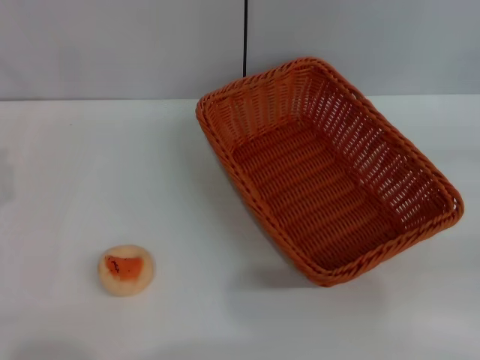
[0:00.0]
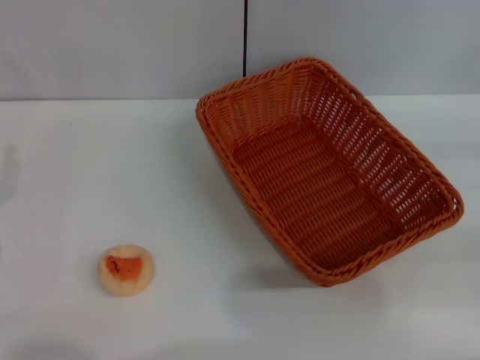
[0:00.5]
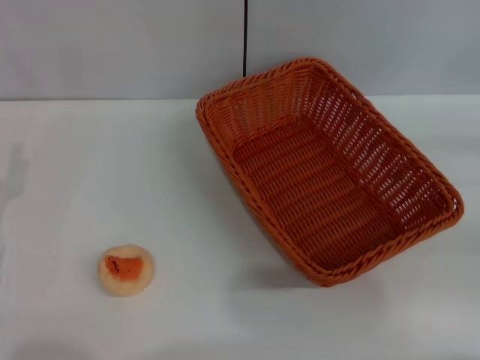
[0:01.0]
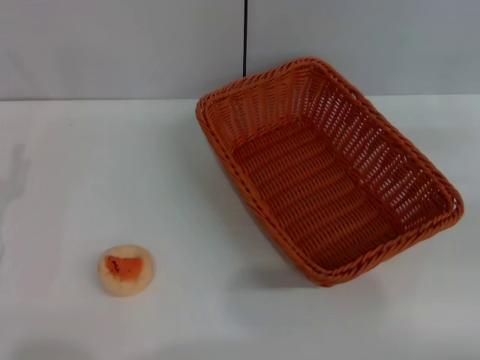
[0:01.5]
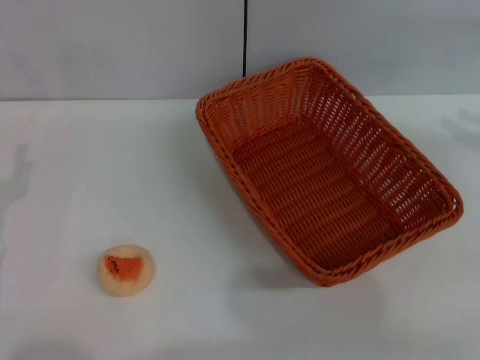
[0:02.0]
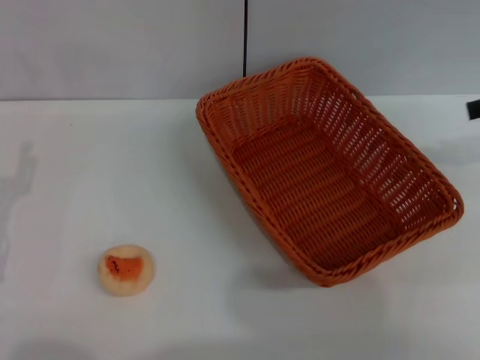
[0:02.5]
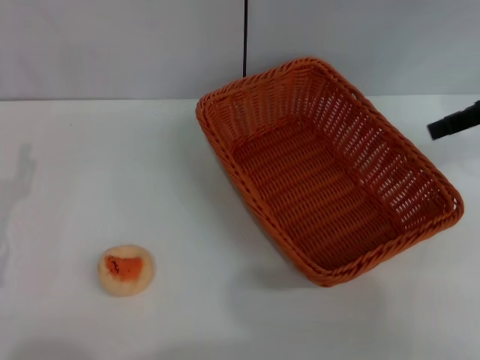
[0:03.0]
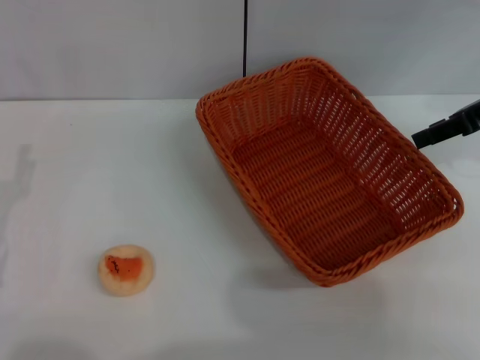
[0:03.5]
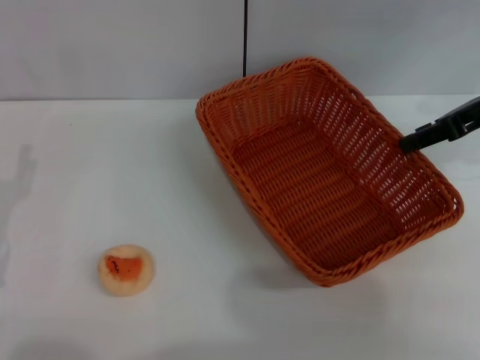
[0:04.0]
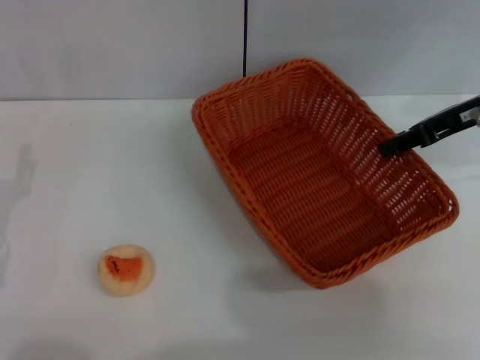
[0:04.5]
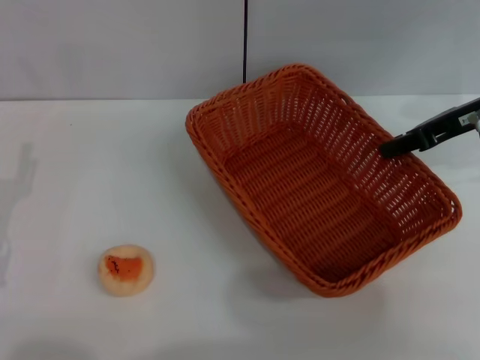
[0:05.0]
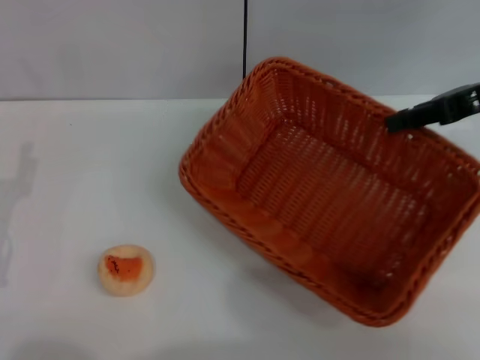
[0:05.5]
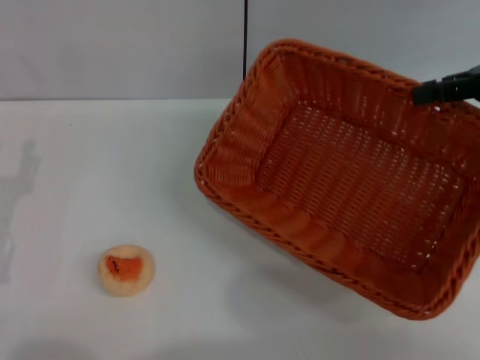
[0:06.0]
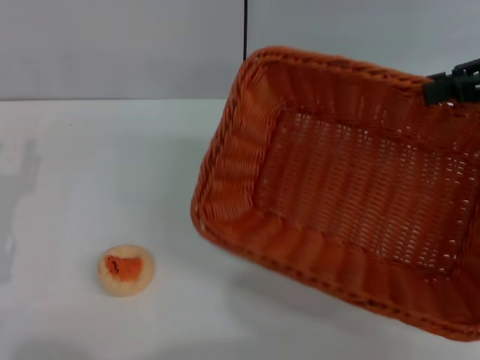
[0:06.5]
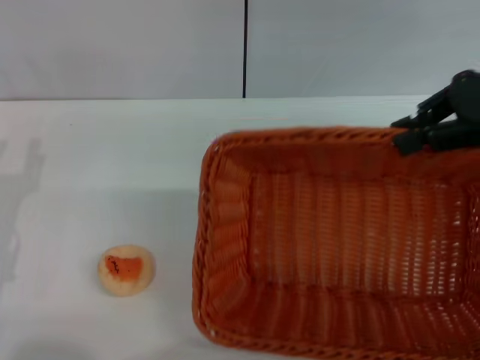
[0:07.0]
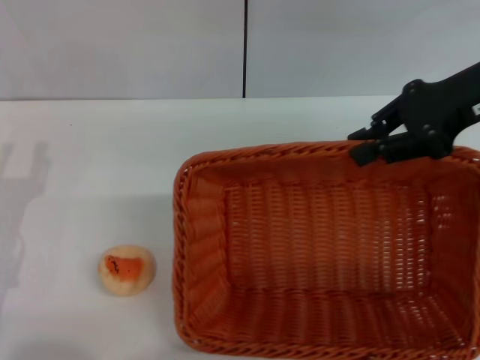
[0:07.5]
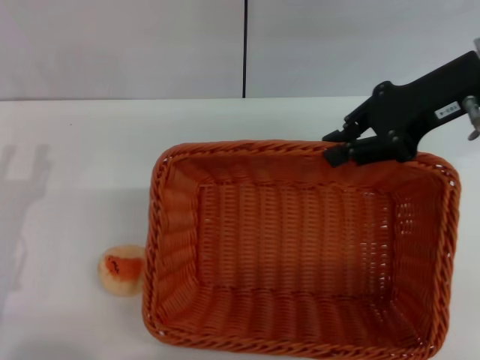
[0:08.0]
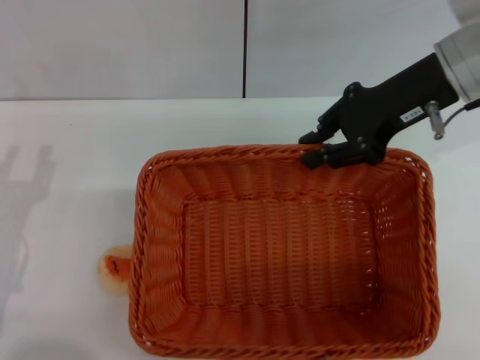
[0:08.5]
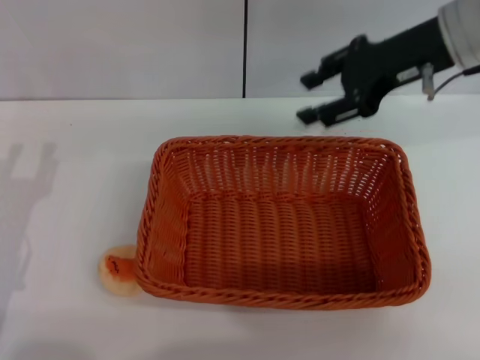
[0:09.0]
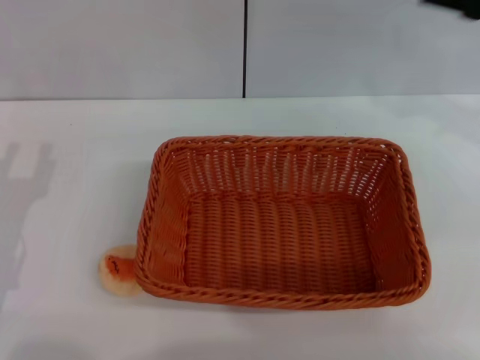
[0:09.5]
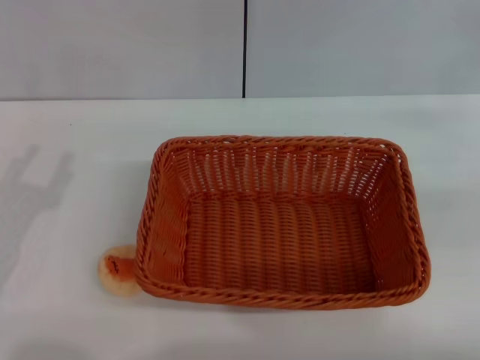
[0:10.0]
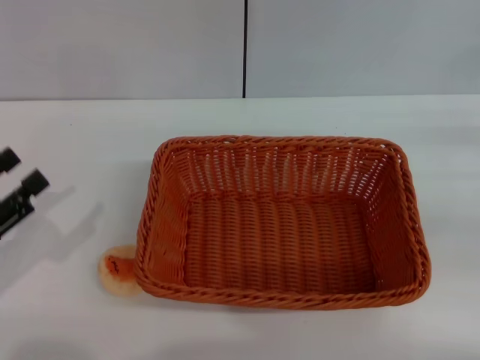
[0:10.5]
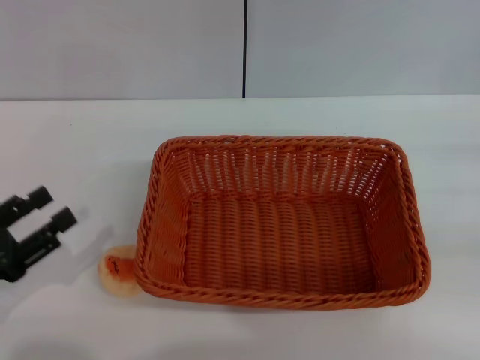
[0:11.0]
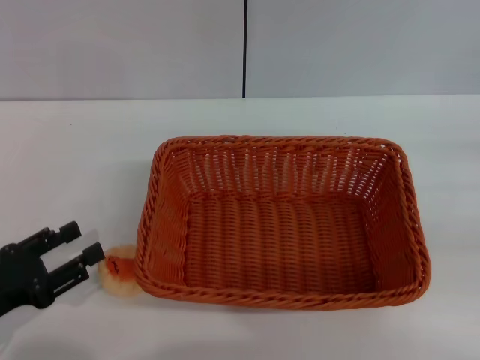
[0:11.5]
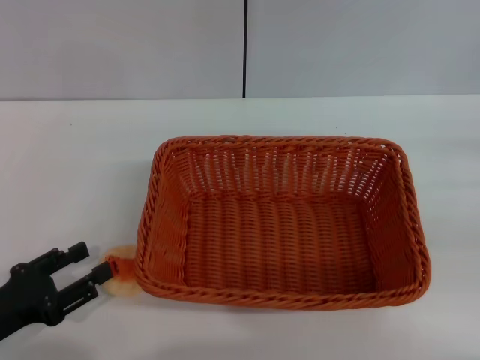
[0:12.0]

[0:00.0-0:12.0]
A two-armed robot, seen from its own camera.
Step, 0.0 to 8.5 s: Move the basket to the center of view with the right gripper.
2.0 to 4.0 s: The right gripper heads to the left and forward, covering some 15 cm.
4.0 to 6.0 s: The right gripper closes up.
6.0 to 8.0 s: The right gripper goes some 10 cm to the left.
8.0 to 10.0 s: The right gripper heads to the right and downward, covering roughly 20 cm, and opens up.
10.0 to 12.0 s: The left gripper moves some 5 cm.

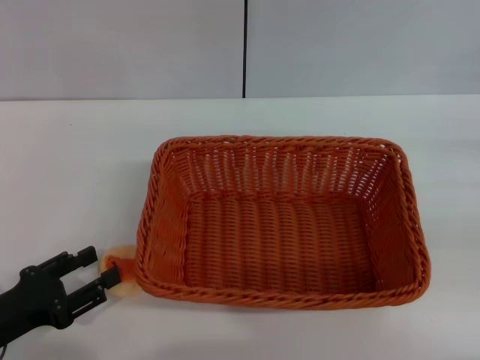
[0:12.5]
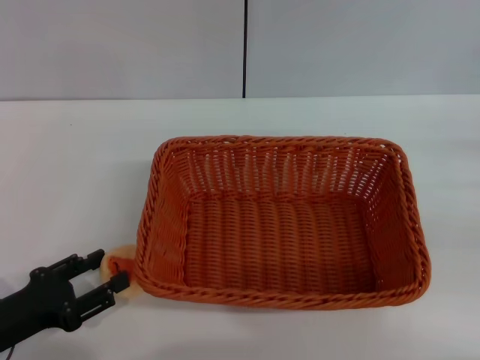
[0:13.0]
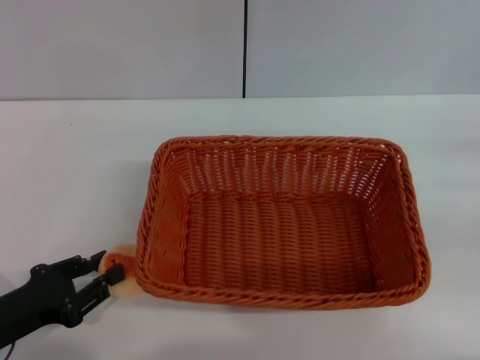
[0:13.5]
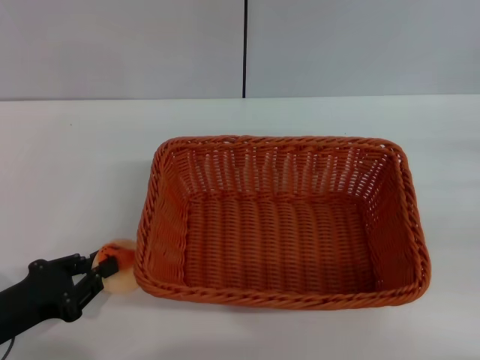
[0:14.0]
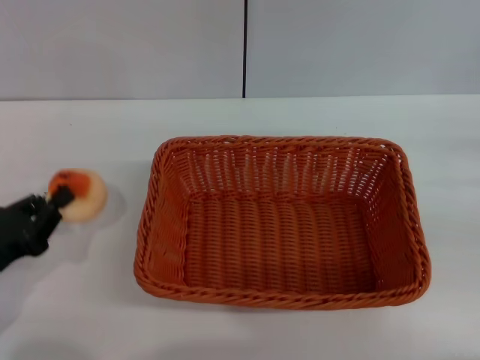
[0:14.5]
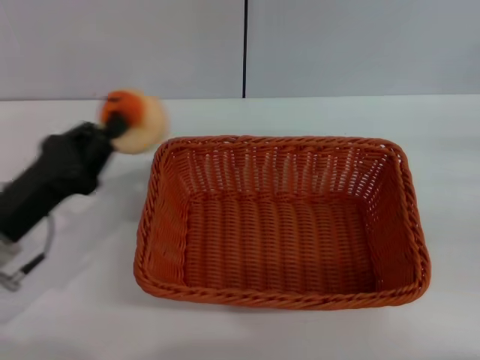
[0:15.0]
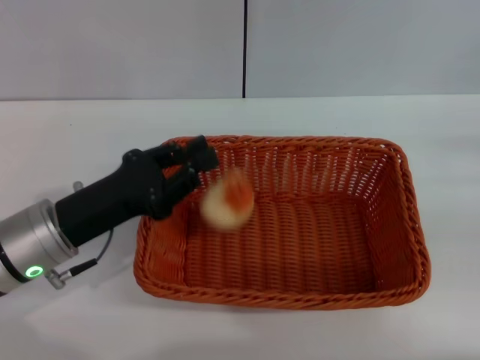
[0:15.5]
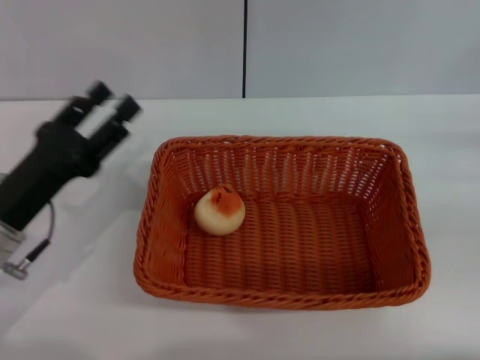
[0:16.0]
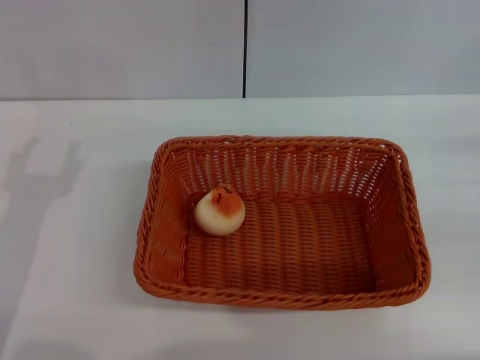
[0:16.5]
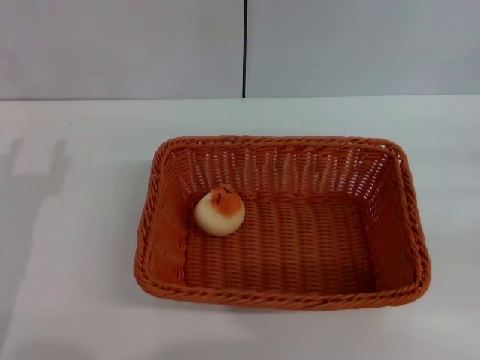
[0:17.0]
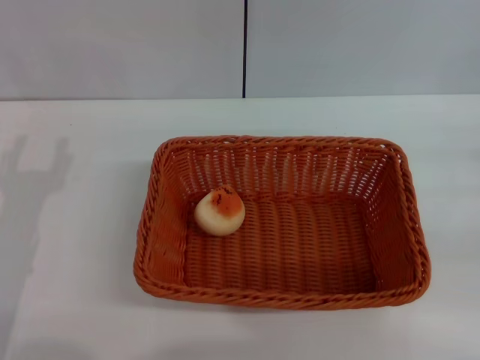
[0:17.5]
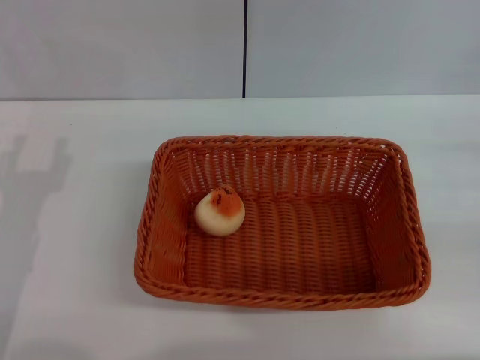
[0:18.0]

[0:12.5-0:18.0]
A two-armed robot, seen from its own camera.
Step, 14.5 to 16.0 s: Place the egg yolk pastry into the basket with the left gripper.
12.5 to 14.5 s: The left gripper closes up.
14.5 to 16.0 s: The left gripper is displaced to the right and forward by some 10 cm, and opens up.
16.0 to 18.0 s: The left gripper opens.

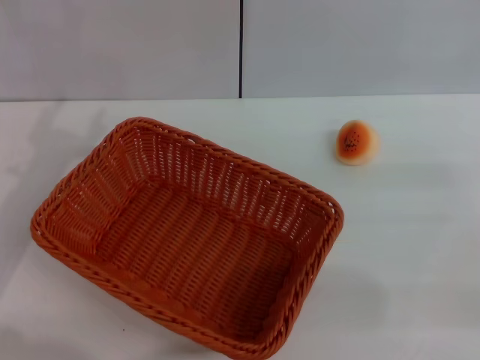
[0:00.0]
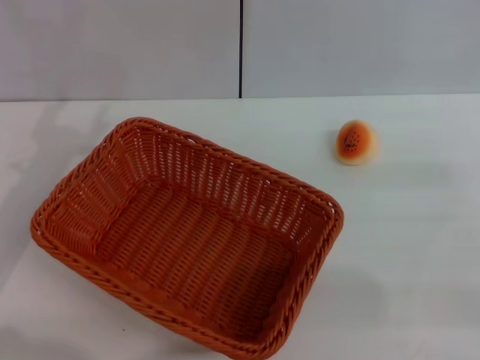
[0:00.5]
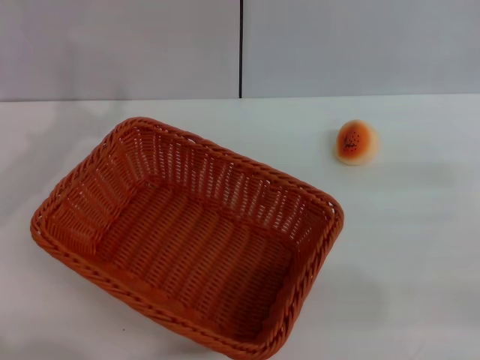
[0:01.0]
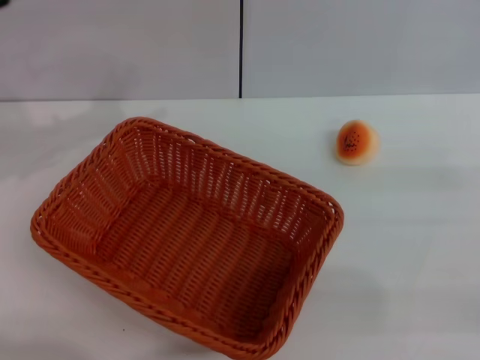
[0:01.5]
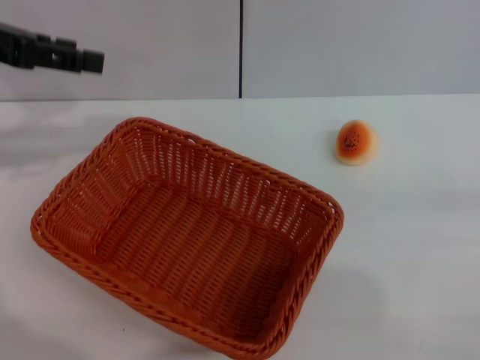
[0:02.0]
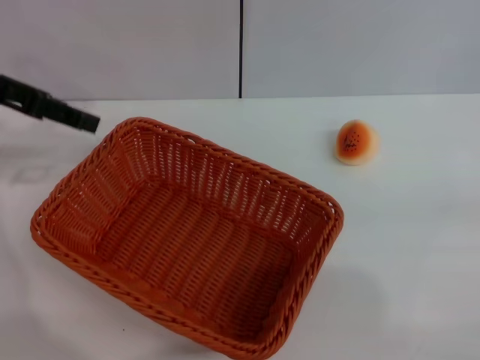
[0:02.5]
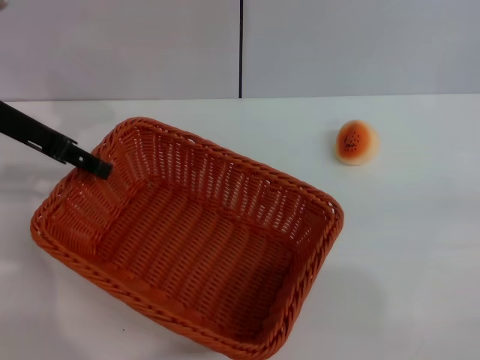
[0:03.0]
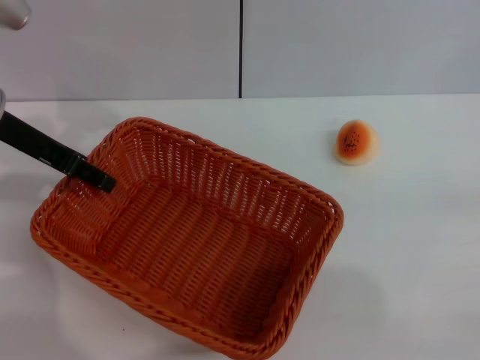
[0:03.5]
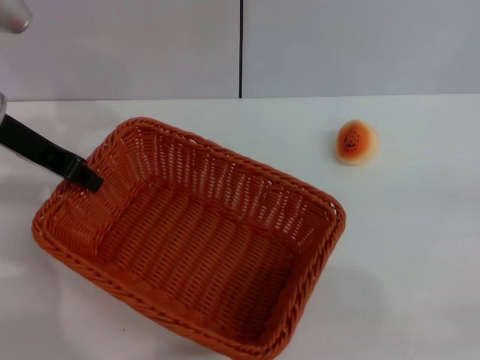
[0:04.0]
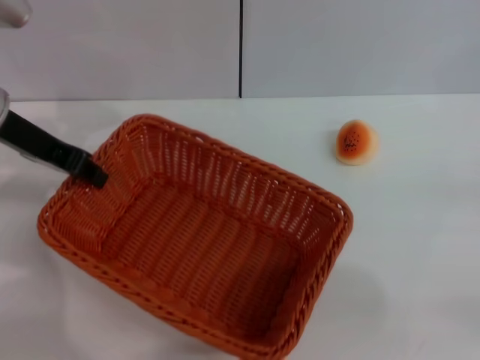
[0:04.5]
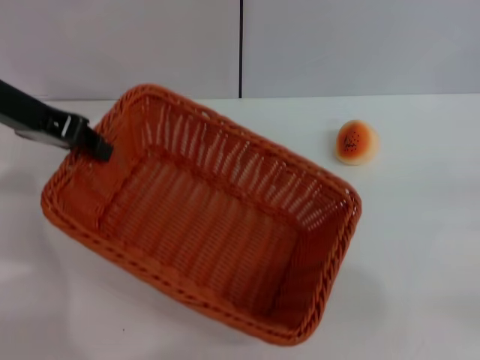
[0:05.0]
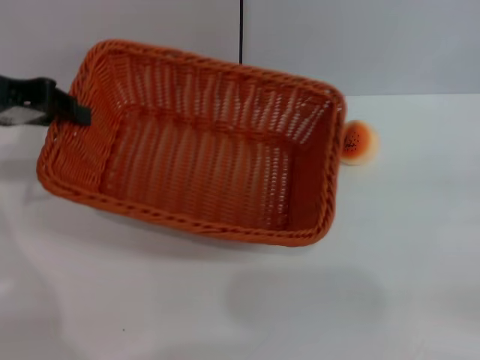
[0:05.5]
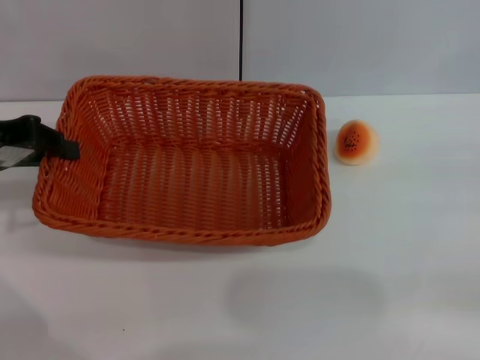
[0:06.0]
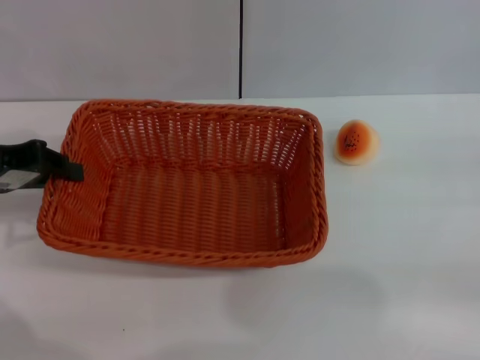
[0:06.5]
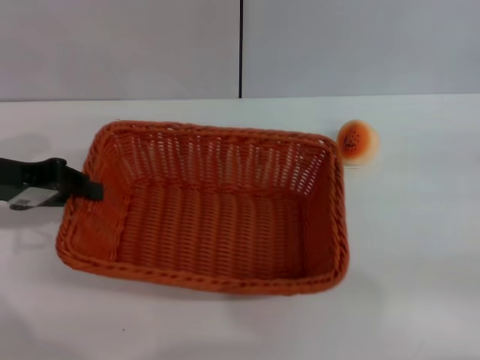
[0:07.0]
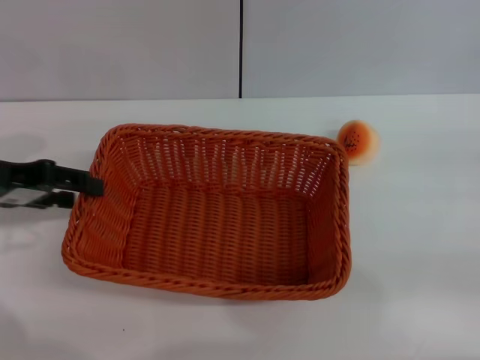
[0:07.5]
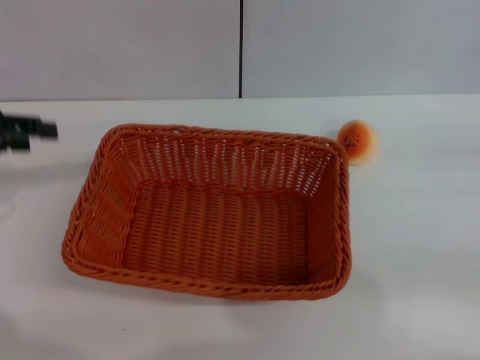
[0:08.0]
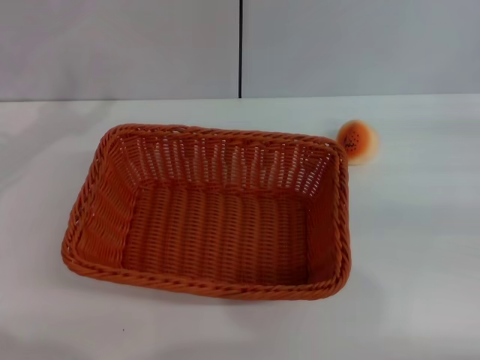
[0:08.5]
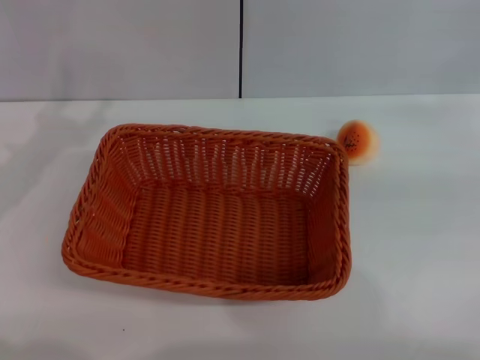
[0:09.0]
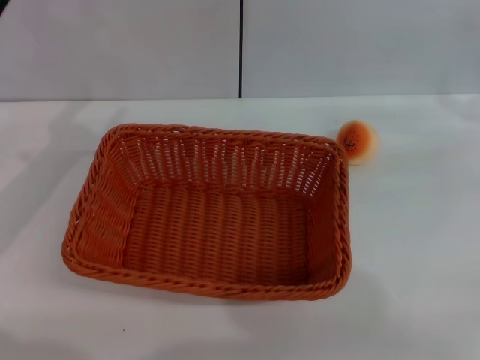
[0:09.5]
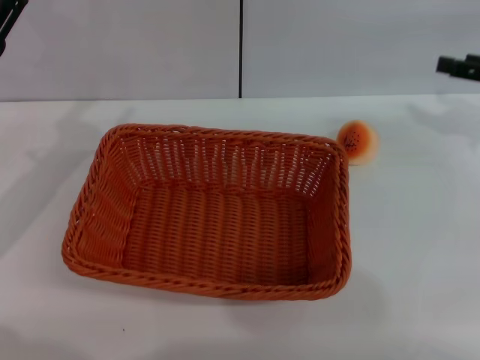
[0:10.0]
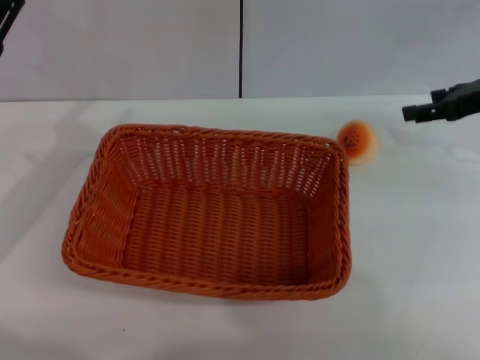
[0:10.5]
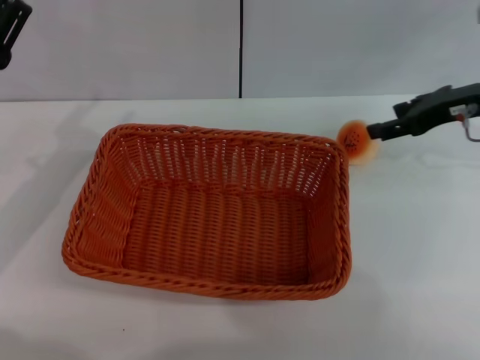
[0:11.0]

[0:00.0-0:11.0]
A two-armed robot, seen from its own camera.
Step, 0.0 to 7.5 s: Move the basket to the center of view with the left gripper.
0.0 to 2.0 s: The left gripper shifts approximately 15 cm upward and forward.
2.0 to 3.5 s: The left gripper travels downward by some 5 cm.
3.5 to 5.5 s: The left gripper ends up about 5 cm from where it was, and closes its fingers.
5.5 to 7.5 s: The left gripper travels downward by some 5 cm, and opens up.
9.0 to 11.0 s: The left gripper shifts by roughly 5 cm. Meanwhile the right gripper is displaced to the left and forward by approximately 15 cm.
